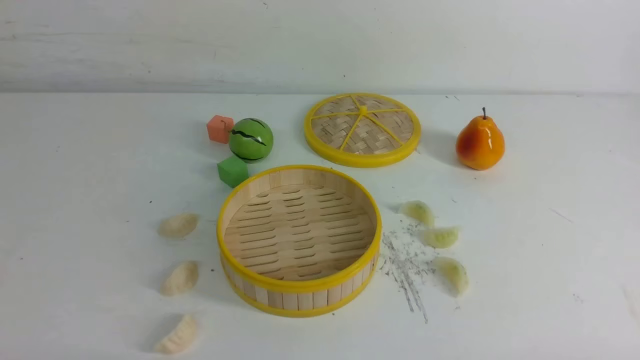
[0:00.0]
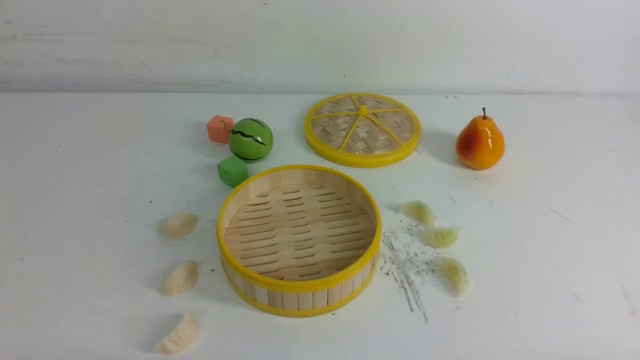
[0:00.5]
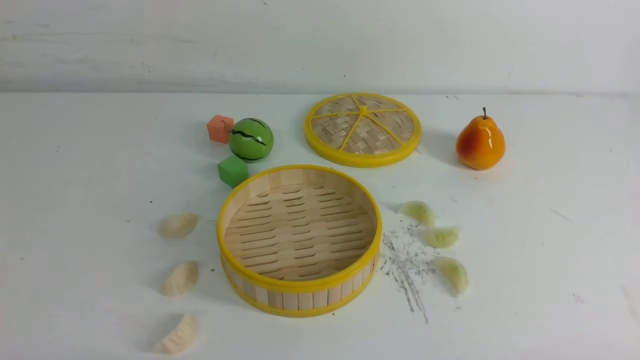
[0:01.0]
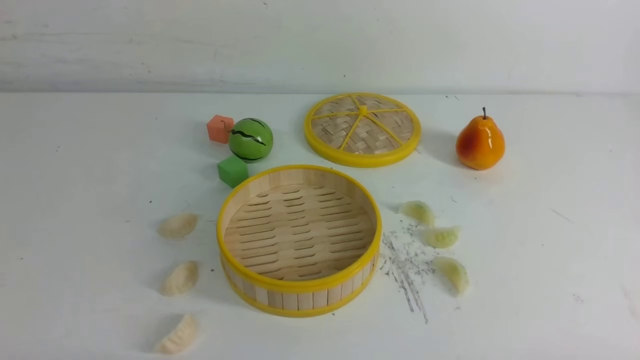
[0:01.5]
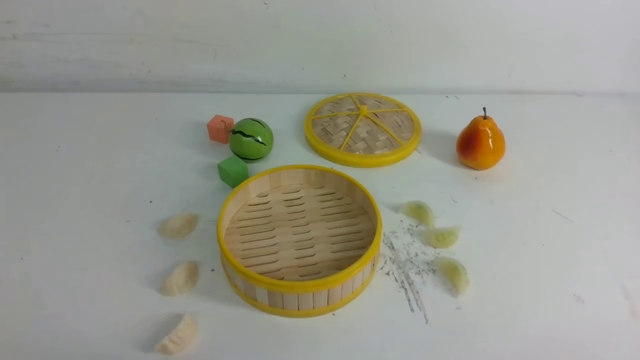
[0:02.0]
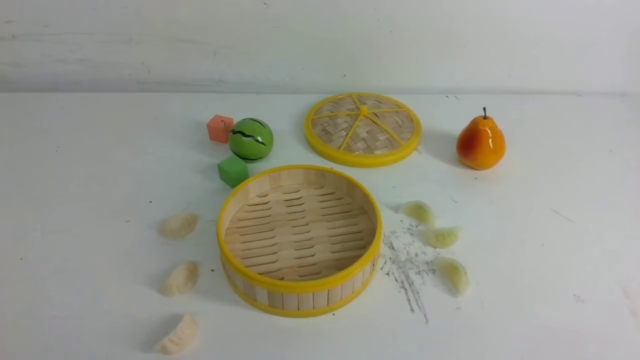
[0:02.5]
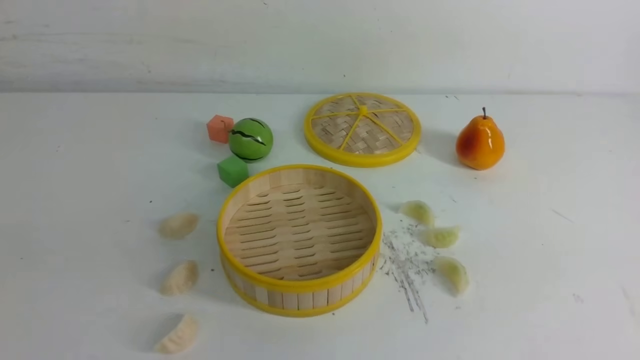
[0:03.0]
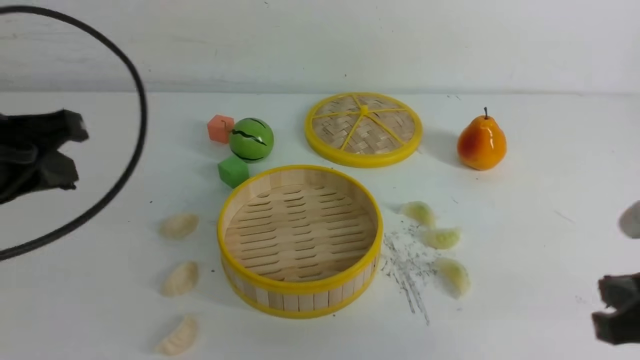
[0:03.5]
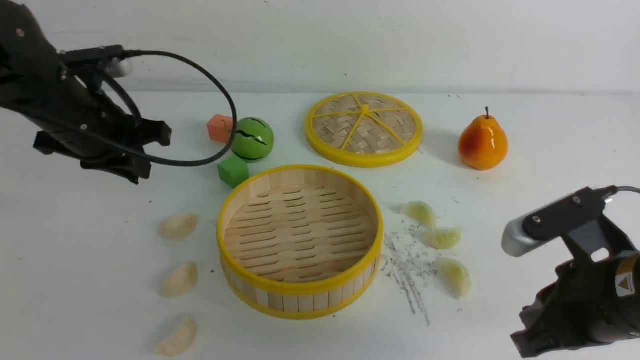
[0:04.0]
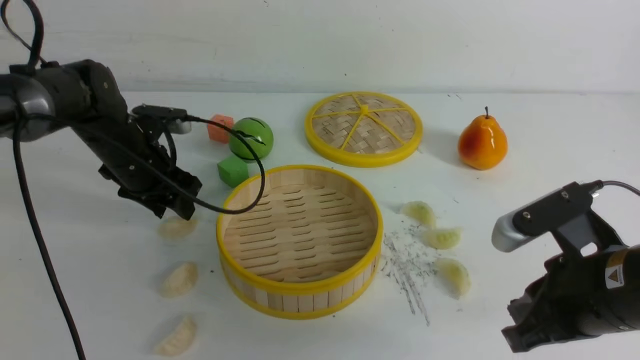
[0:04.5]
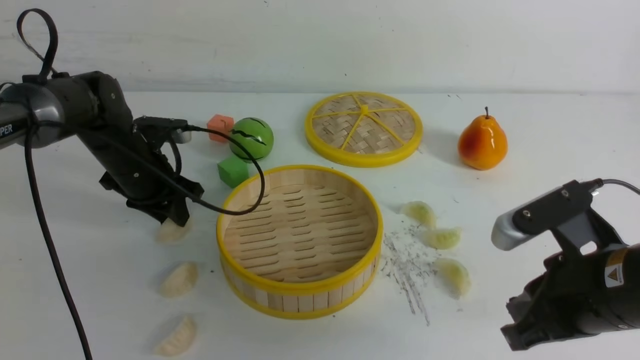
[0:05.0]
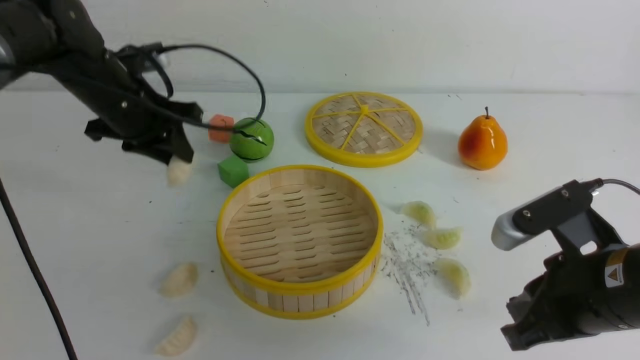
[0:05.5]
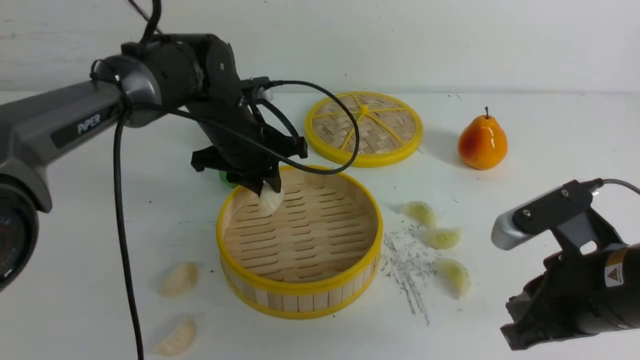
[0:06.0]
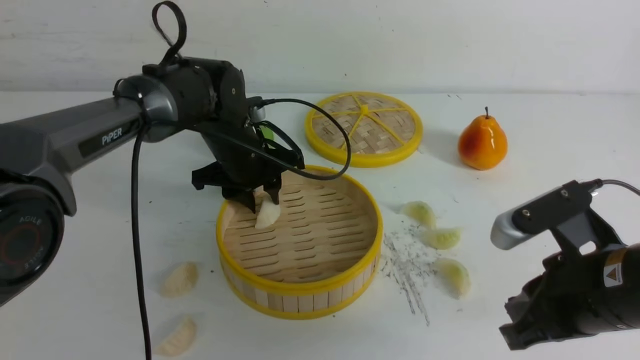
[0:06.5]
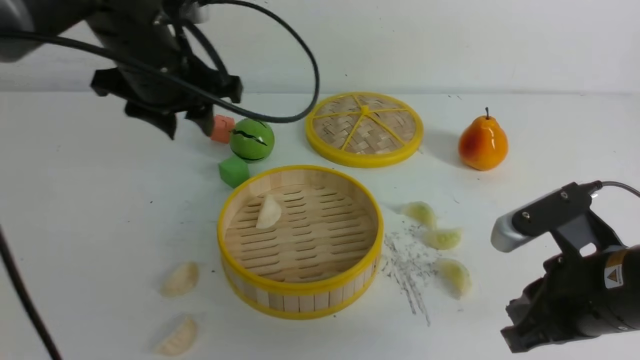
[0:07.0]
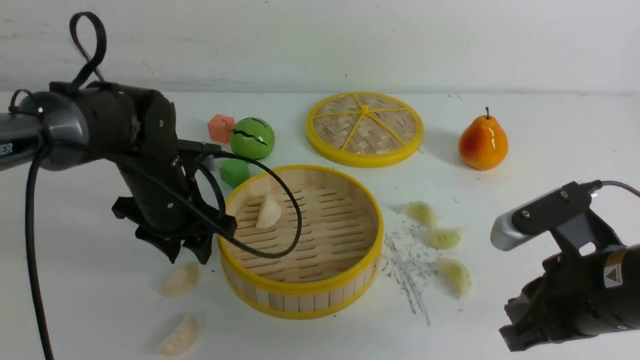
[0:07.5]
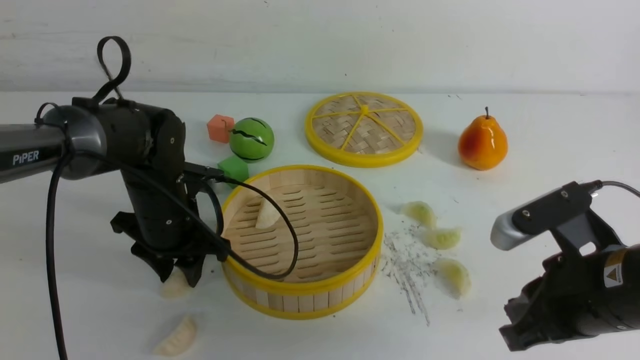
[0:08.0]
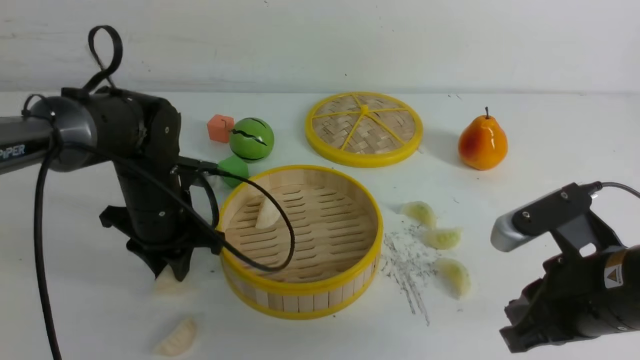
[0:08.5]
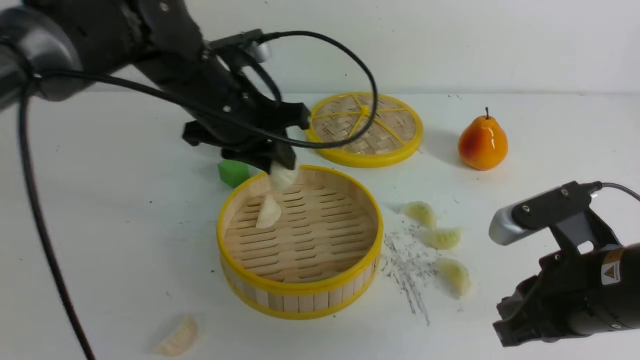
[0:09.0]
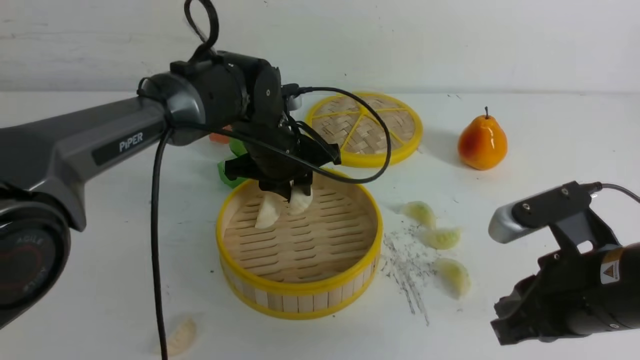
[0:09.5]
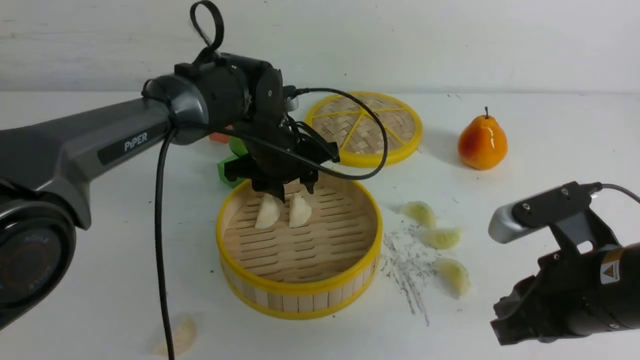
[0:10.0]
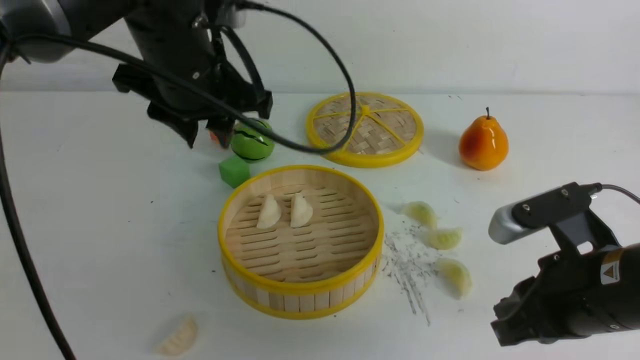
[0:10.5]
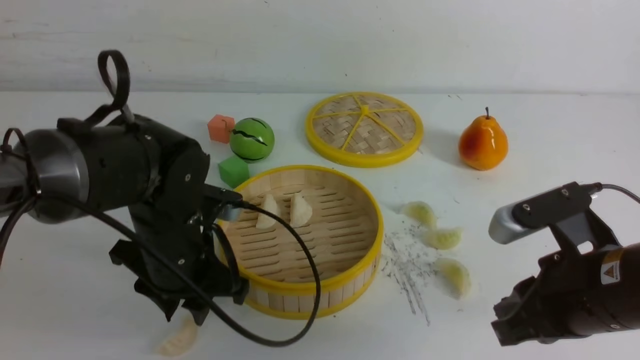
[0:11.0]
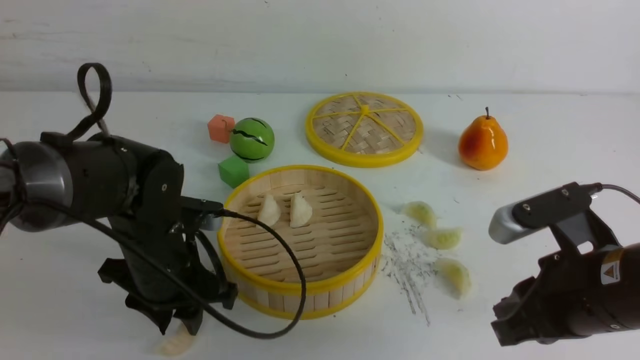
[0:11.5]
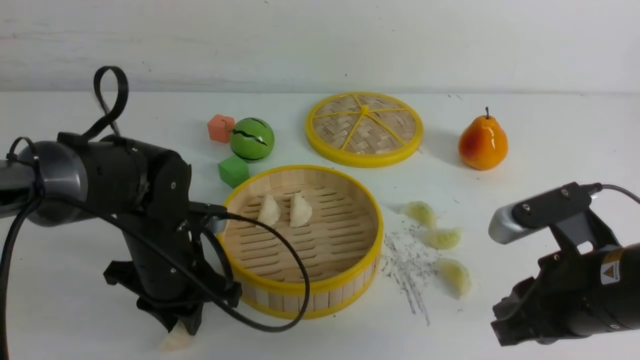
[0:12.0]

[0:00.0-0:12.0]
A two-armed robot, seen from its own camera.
Task of the whole recording: put the dumplings into the steamer on the white table.
Step, 0:00.0 to 0:04.5: use the left arm to grab a dumpling.
Step, 0:05.0 to 0:06.5: use the left arm to put the dumpling into the steamer.
Step, 0:07.0 to 0:08.5: use the left arm to grab a dumpling.
Step, 0:09.0 to 0:09.5: use the left arm to put the dumpling into the steamer.
Step, 0:10.0 to 0:12.0: use the left arm to grab a dumpling.
0:02.0 to 0:04.0: The left gripper is displaced forward by about 35 cm. The right gripper shifts roughly 15 cm forward and to the left.
0:04.0 to 0:06.0: The left gripper goes approximately 15 cm to the right and forward, and opens and closes again.
0:06.0 to 0:08.0: The left gripper is displaced to the left, backward and downward by roughly 10 cm.
0:08.0 to 0:10.0: The left gripper goes some 15 cm to the right, upward and forward.
0:10.0 to 0:12.0: The left gripper heads backward, to the left and downward, covering some 15 cm, and closes up.

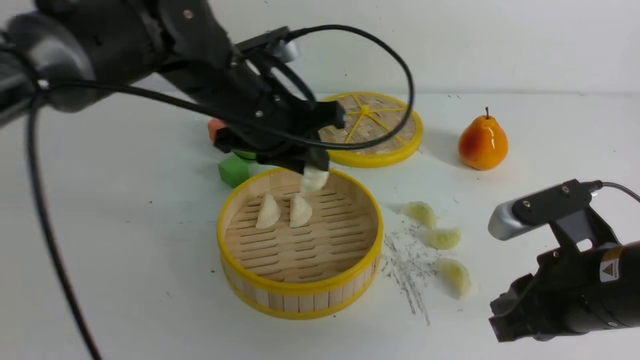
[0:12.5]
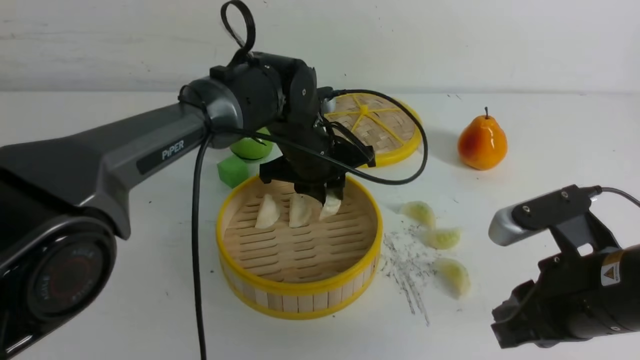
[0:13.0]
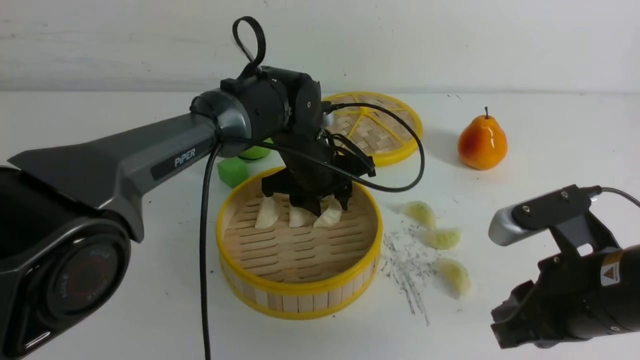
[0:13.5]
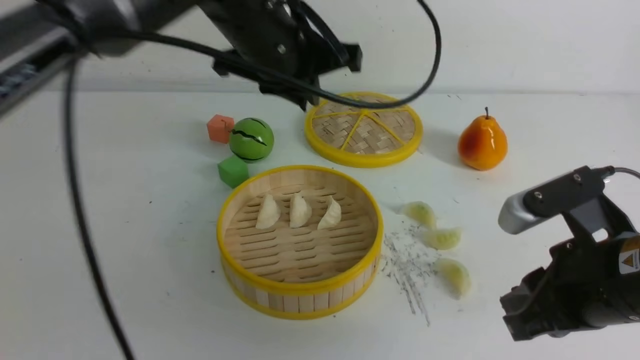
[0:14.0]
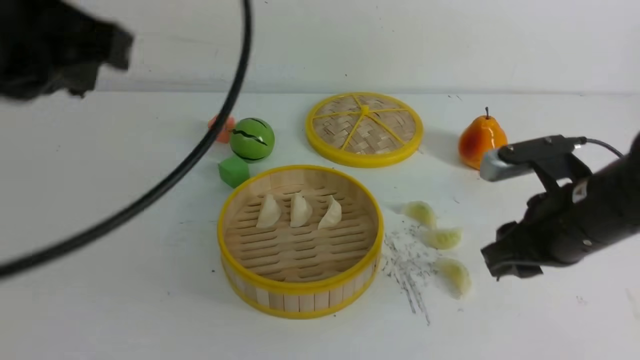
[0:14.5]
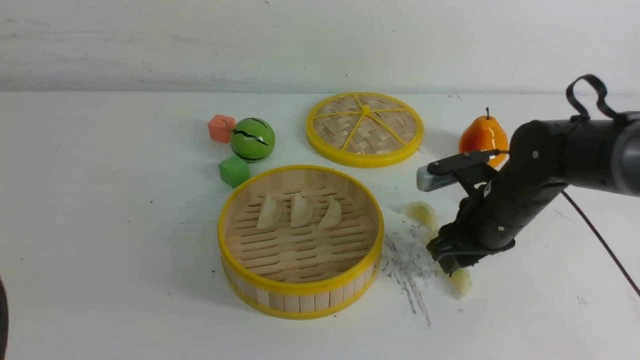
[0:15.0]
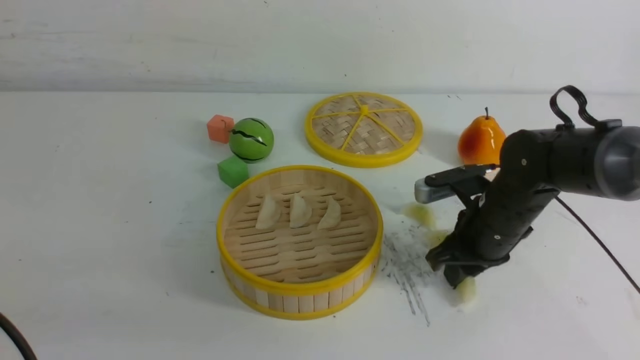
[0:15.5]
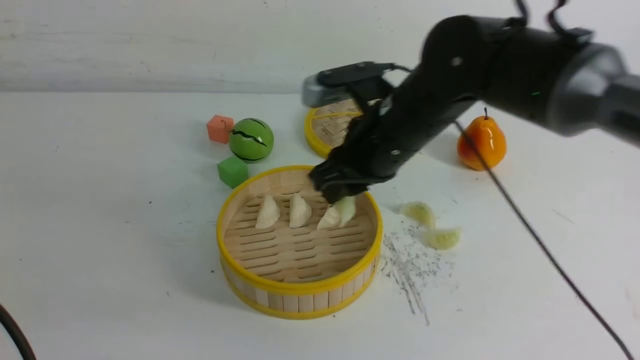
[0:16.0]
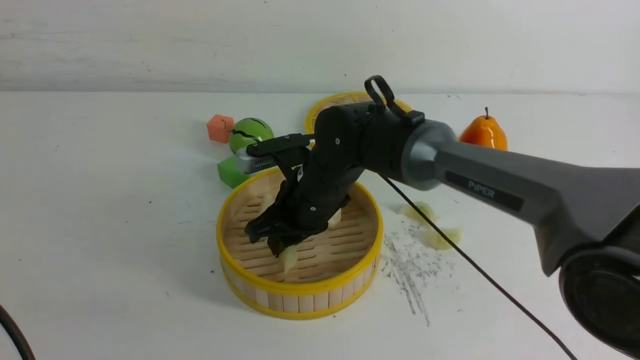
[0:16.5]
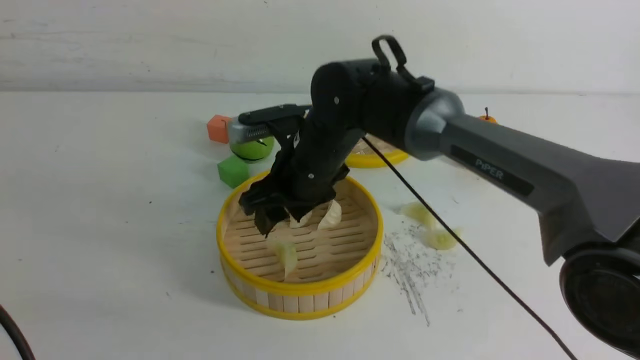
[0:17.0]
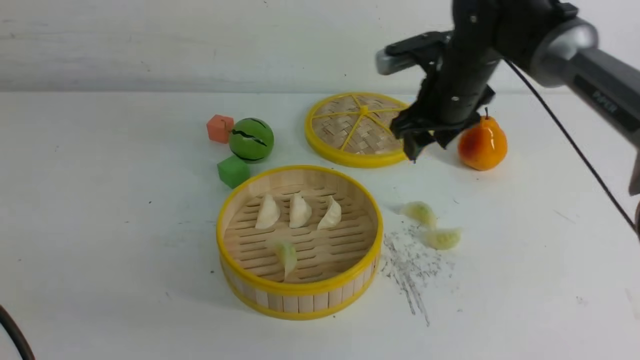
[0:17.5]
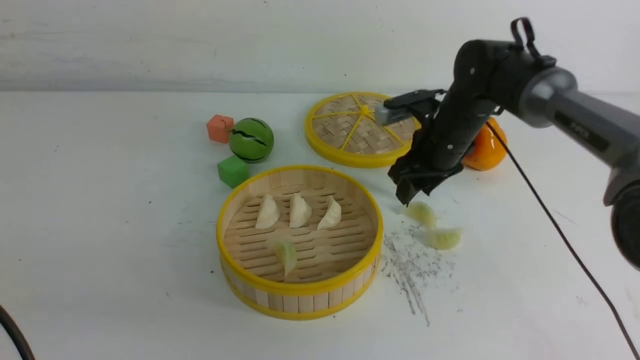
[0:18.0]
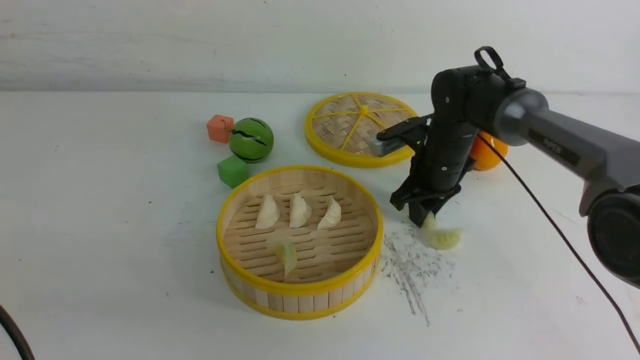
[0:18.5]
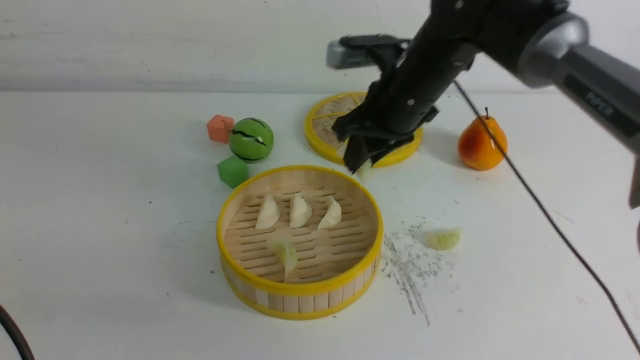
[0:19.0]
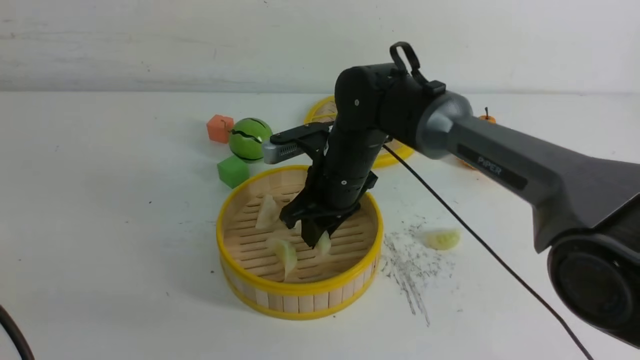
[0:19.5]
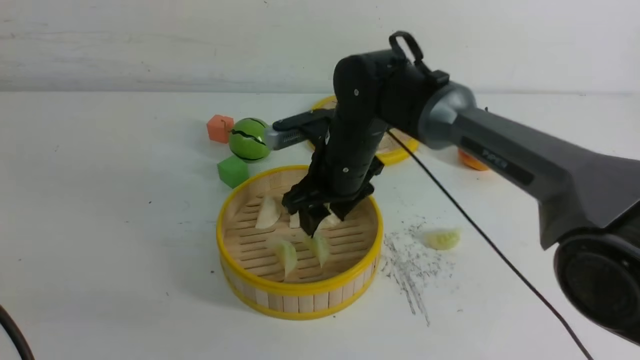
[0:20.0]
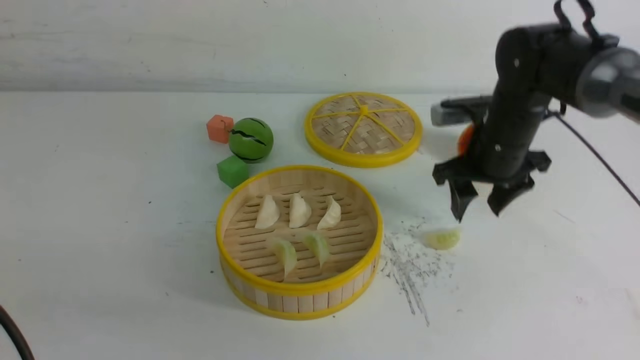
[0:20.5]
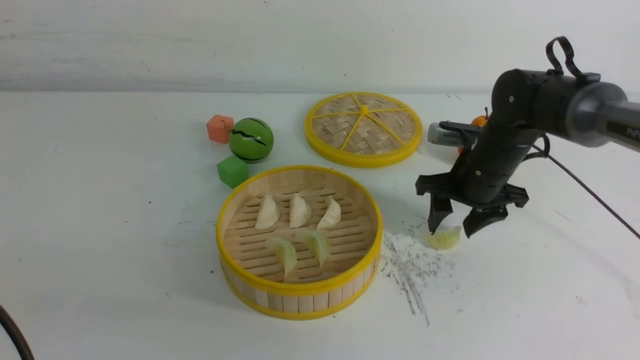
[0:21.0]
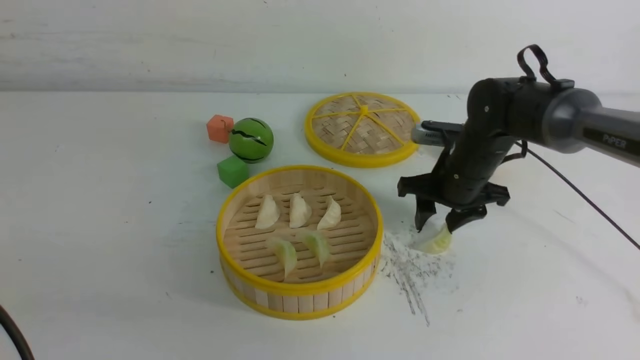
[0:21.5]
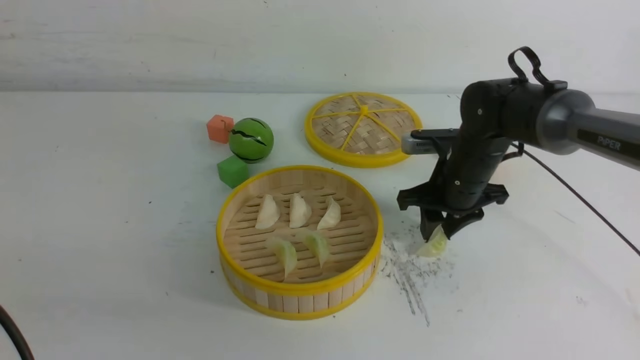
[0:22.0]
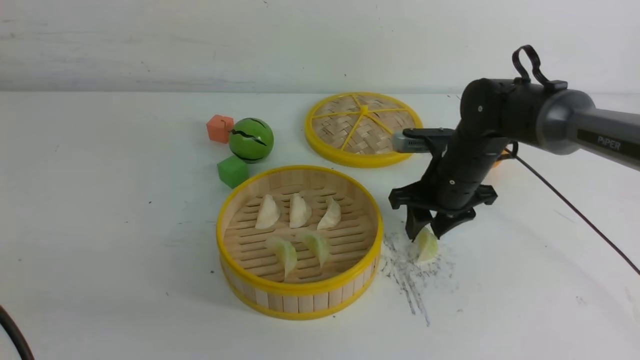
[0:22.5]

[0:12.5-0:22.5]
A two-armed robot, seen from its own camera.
Task of the whole recording: put the dumplings into the steamer on the white table.
Step, 0:12.5 to 0:13.5: use the left arm to put the dumpling into the steamer.
Step, 0:14.0 to 0:15.0: use the right arm to grab a dumpling.
Step, 0:16.0 to 0:16.5: use the right arm to put the dumpling into the steamer.
Step, 0:17.0 to 0:18.5: use the right arm to grab a dumpling.
Step, 0:19.0 to 0:19.5: use the right arm to put the dumpling into the steamer.
0:12.5 to 0:14.5: The right gripper is displaced forward by about 5 cm, and opens up, while the left gripper travels backward, upward and to the left by some 25 cm, and closes up.
0:14.5 to 0:16.5: The left gripper goes roughly 20 cm downward, backward and to the left, while the right gripper is displaced to the left and forward by roughly 25 cm.
0:16.5 to 0:18.5: The right gripper is displaced to the right and forward by roughly 20 cm, and opens, then closes once more.
0:18.5 to 0:20.5: The right gripper reaches roughly 15 cm to the left, then returns, and opens up.
0:20.5 to 0:22.5: The right gripper shifts about 5 cm downward.
